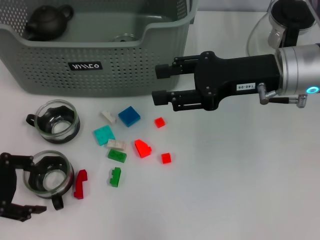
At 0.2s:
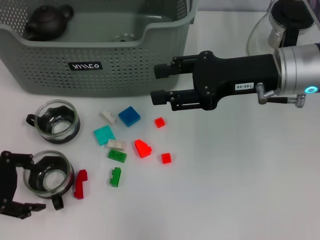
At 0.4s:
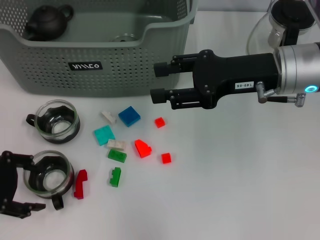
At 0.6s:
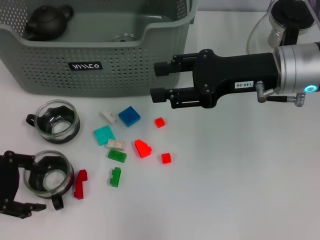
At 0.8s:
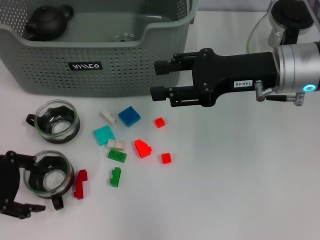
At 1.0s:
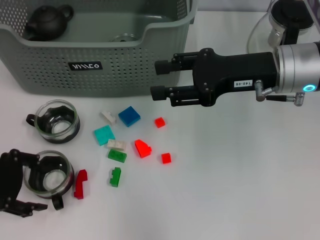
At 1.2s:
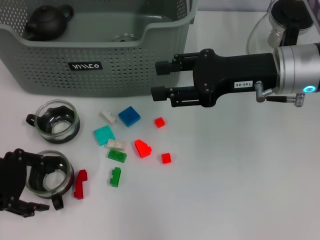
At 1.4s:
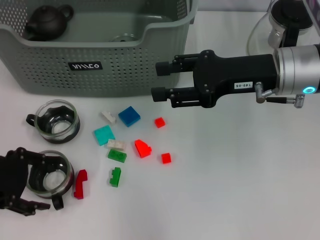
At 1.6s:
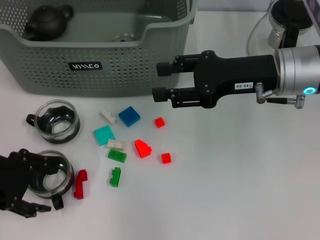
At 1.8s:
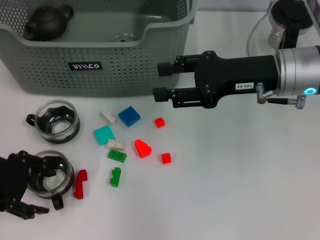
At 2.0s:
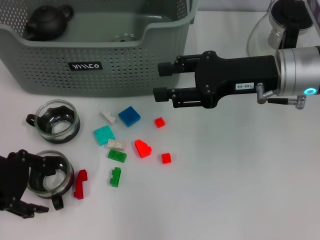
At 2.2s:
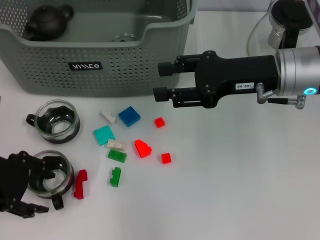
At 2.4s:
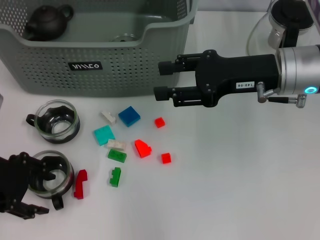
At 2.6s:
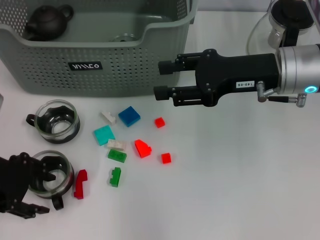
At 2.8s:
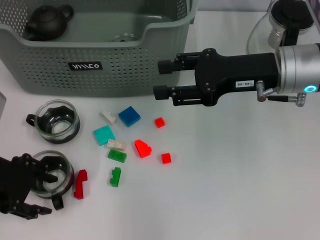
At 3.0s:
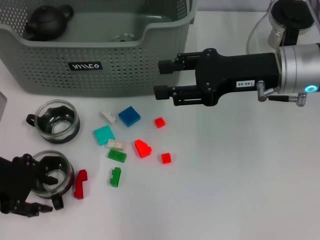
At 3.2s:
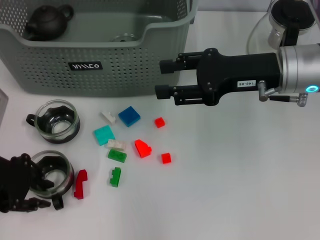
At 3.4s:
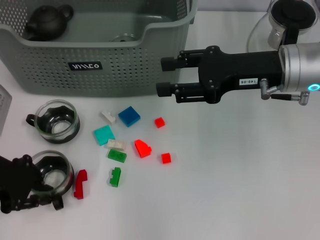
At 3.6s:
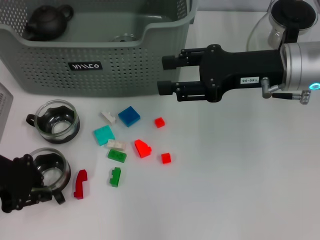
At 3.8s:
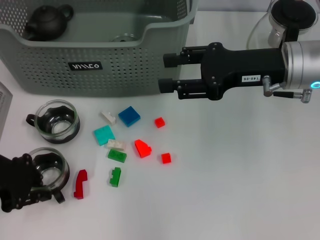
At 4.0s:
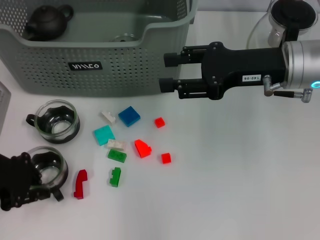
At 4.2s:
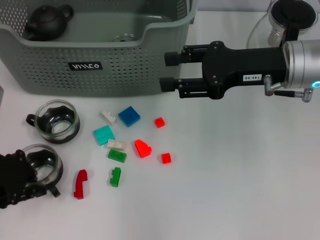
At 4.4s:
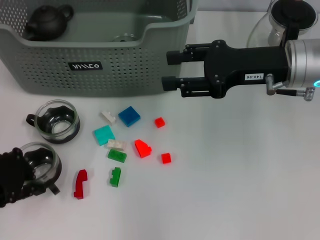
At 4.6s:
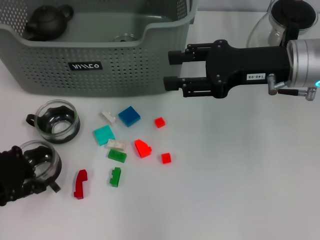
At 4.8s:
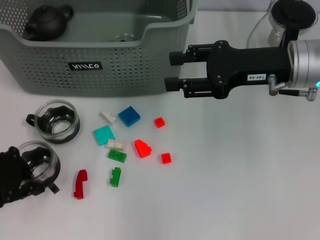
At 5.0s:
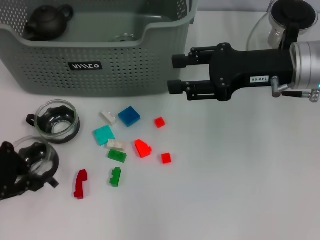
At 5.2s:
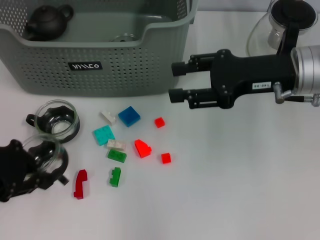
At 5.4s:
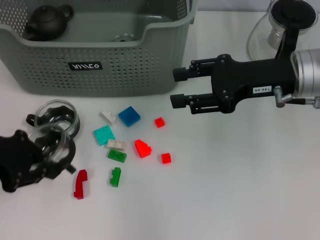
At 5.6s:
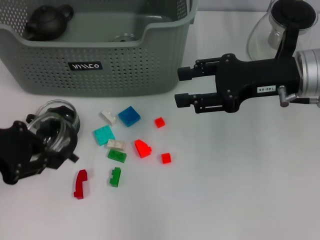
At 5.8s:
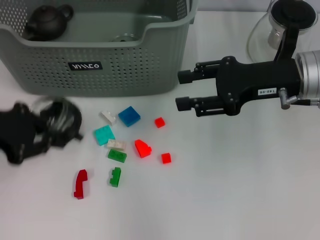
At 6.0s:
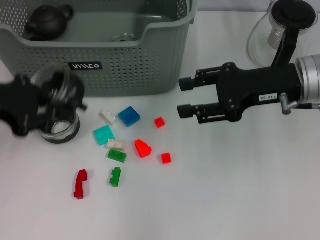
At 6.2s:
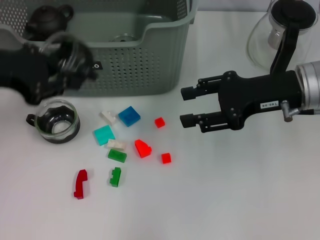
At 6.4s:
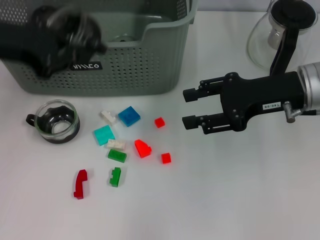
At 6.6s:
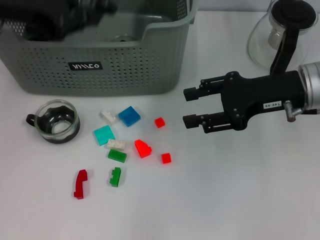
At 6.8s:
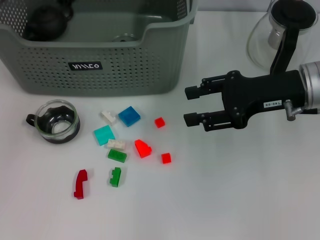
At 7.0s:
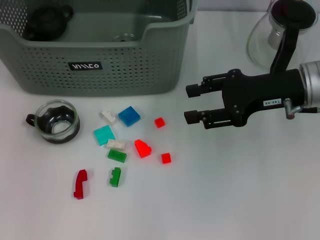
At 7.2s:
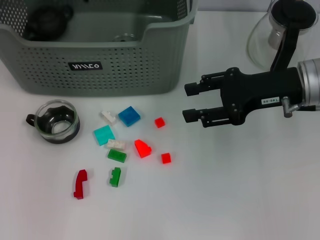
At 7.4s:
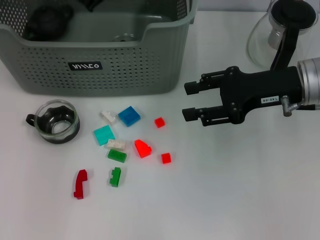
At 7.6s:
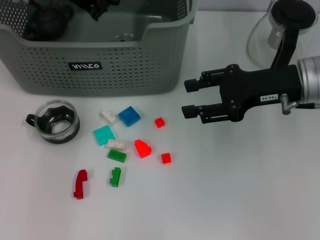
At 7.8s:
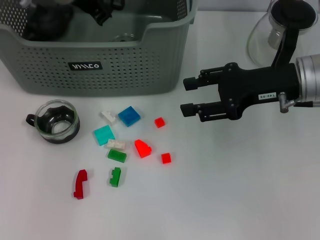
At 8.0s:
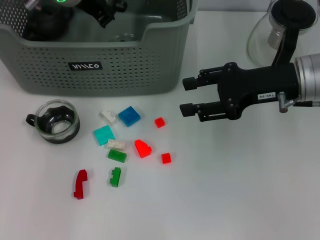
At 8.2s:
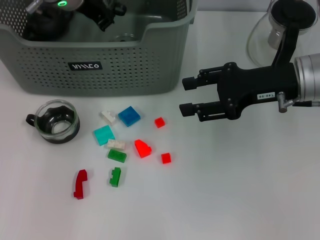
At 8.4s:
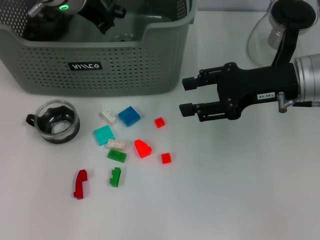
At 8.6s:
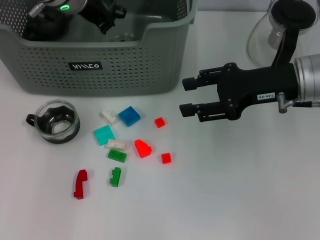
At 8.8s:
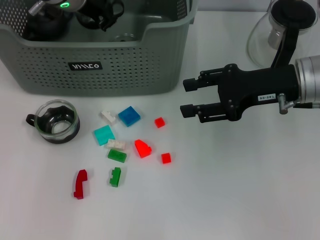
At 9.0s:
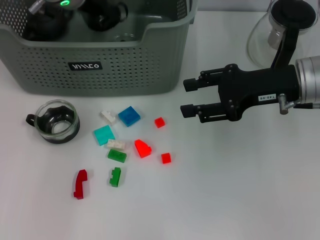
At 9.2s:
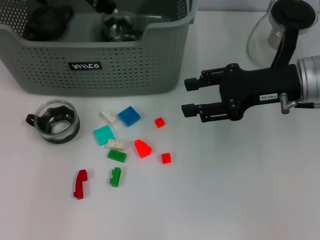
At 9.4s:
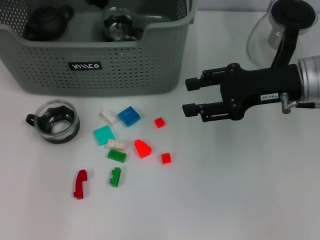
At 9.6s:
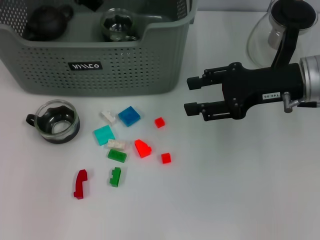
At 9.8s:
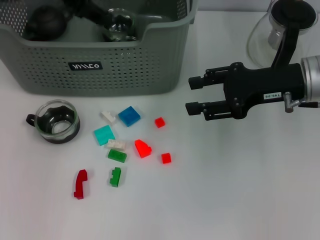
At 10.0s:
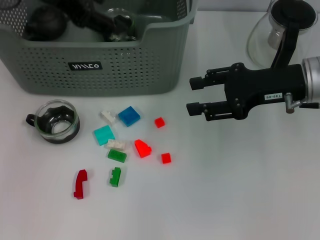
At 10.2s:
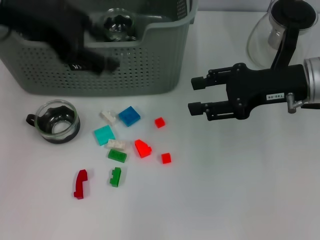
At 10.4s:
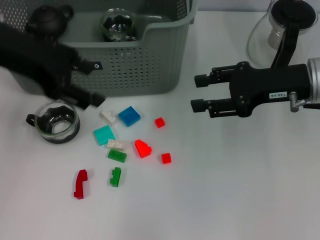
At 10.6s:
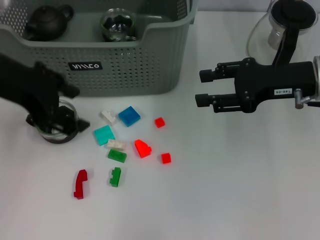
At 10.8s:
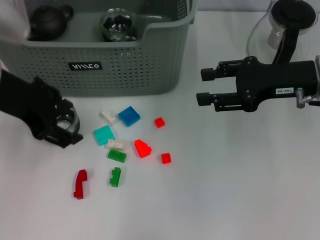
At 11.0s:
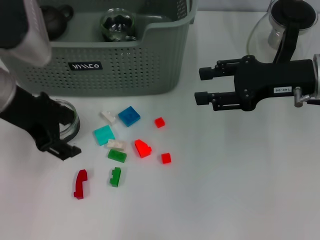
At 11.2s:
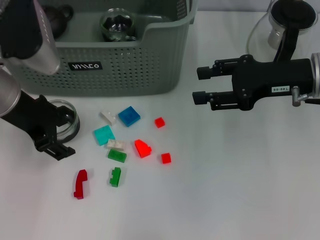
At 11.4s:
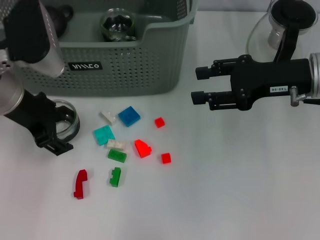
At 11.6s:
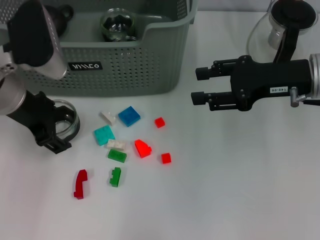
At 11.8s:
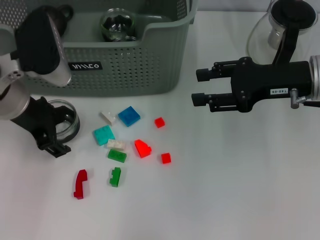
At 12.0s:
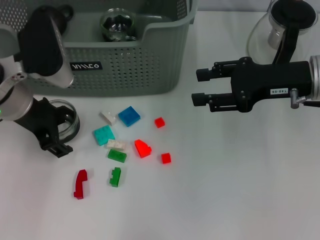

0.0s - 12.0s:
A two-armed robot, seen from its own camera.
Task of the whole recording: pick up the teacup on the table and place it into the storage bin, pick up the block on the table and place it into the storage bin.
Step, 0.0s - 3.6s: Grasp the cup with left gripper.
Step, 3.8s - 9.6s: Place the cup in the storage box with left gripper.
0.0s - 1.6s: The grippers make only small movements.
1.6s - 3.0s: Both grippers stay put.
3.0s - 4.4s: The left gripper closes its fingers.
4.4s - 6.0s: The left gripper heads upward, covering about 5 cm.
6.0s - 7.6s: The left gripper shifts approximately 20 cm forward and to the right.
7.6s - 9.0s: The grippers stay close to where they were, moving slightly.
9.0s - 10.4s: The left gripper travels backward, upward and to the left by approximately 20 cm, and opens its fingers.
10.4s - 12.0s: The left gripper is displaced downward by some 10 cm.

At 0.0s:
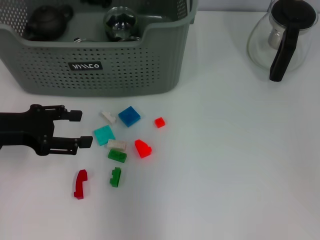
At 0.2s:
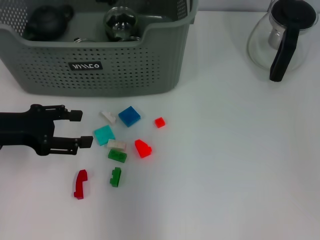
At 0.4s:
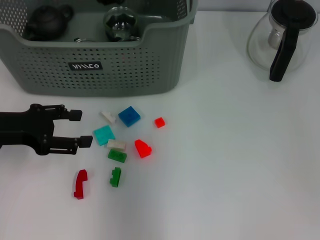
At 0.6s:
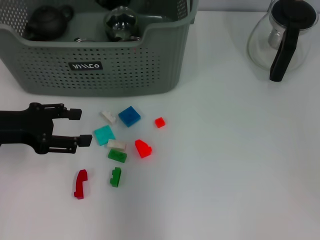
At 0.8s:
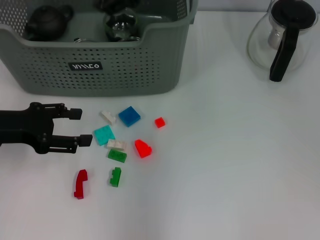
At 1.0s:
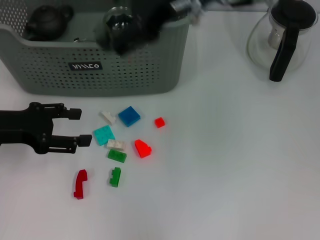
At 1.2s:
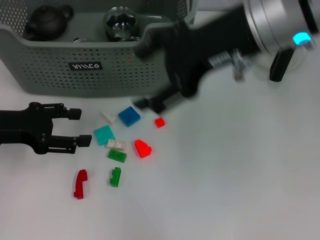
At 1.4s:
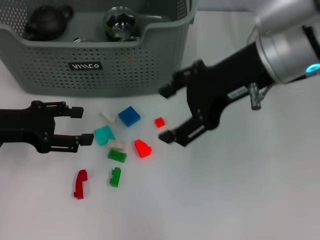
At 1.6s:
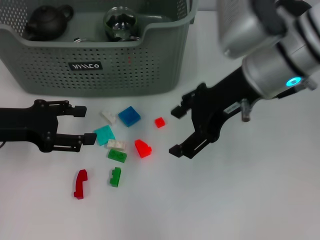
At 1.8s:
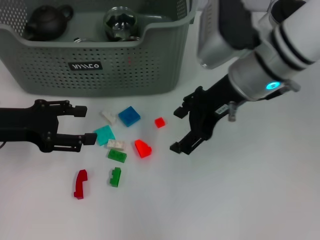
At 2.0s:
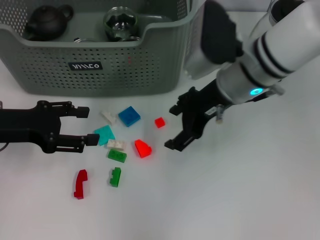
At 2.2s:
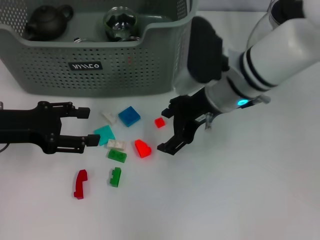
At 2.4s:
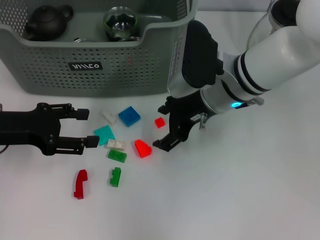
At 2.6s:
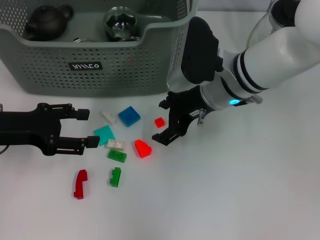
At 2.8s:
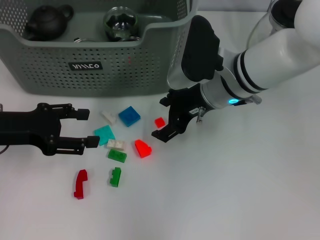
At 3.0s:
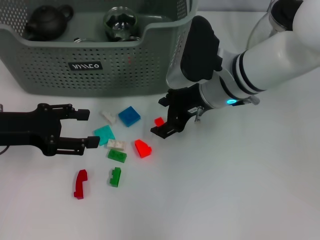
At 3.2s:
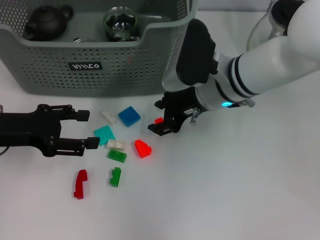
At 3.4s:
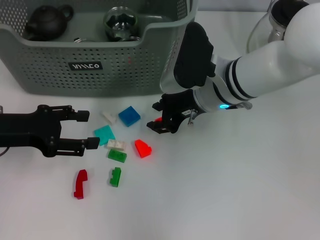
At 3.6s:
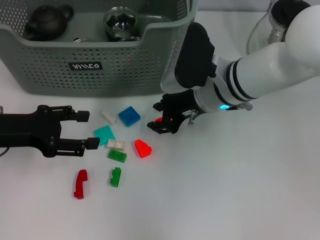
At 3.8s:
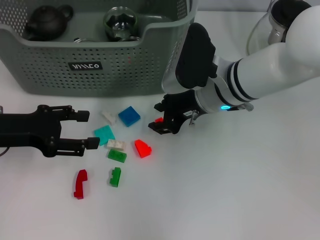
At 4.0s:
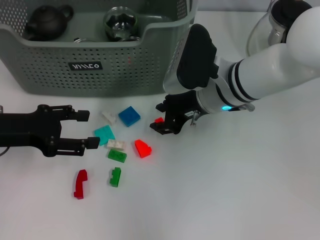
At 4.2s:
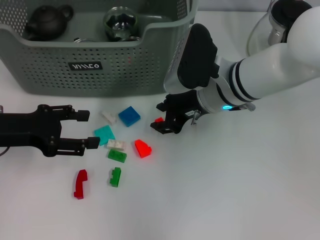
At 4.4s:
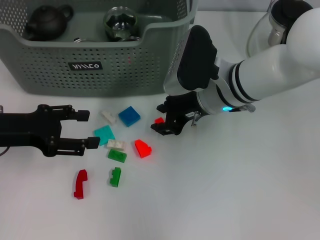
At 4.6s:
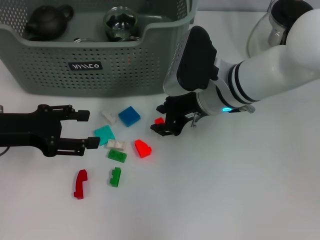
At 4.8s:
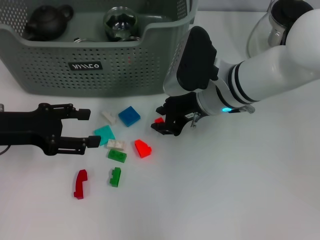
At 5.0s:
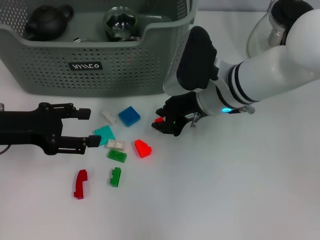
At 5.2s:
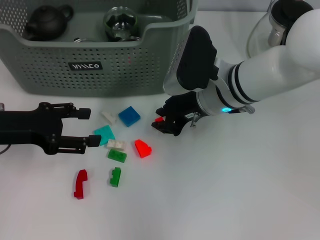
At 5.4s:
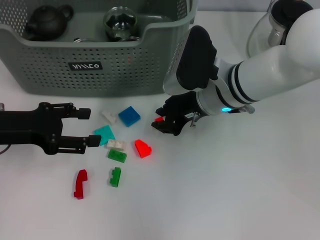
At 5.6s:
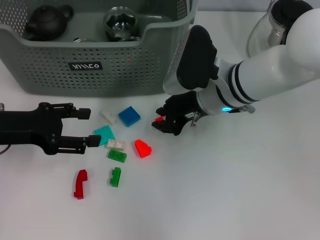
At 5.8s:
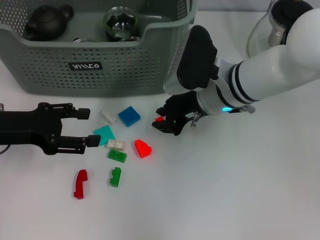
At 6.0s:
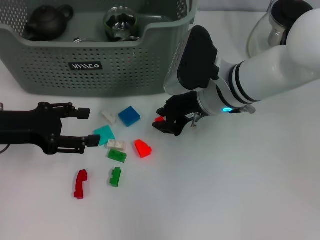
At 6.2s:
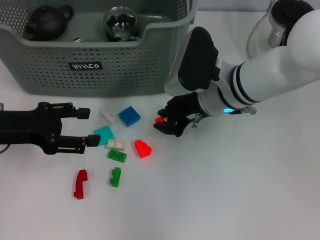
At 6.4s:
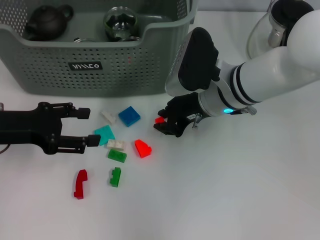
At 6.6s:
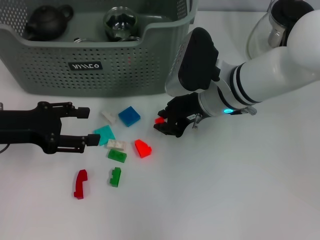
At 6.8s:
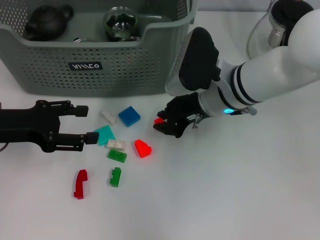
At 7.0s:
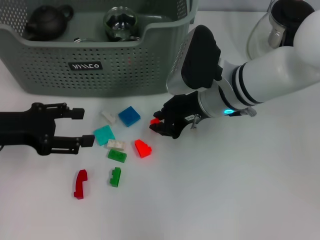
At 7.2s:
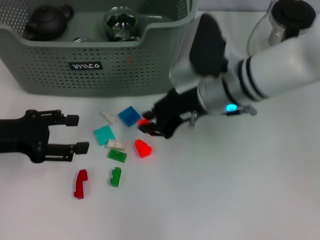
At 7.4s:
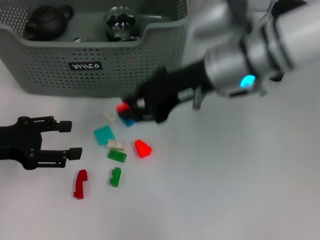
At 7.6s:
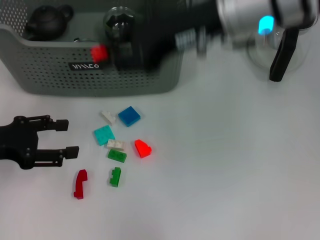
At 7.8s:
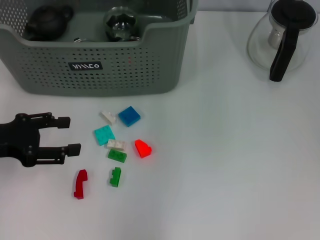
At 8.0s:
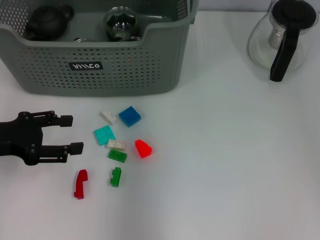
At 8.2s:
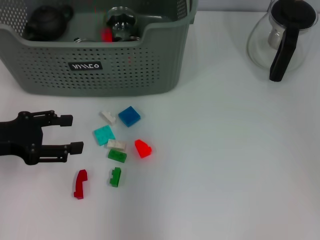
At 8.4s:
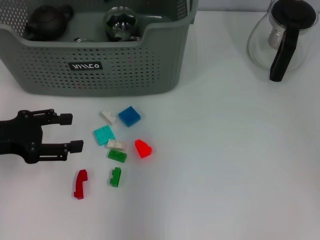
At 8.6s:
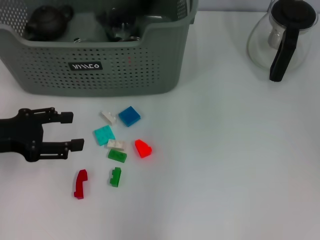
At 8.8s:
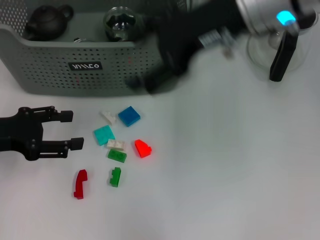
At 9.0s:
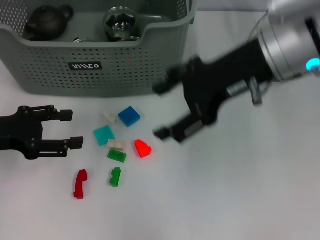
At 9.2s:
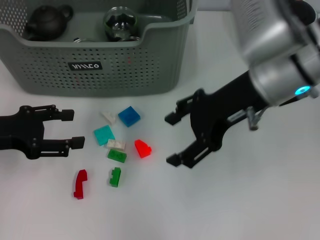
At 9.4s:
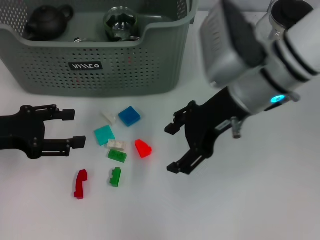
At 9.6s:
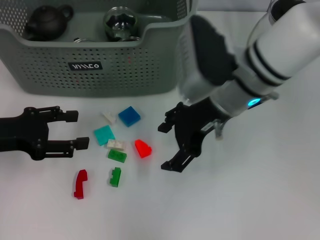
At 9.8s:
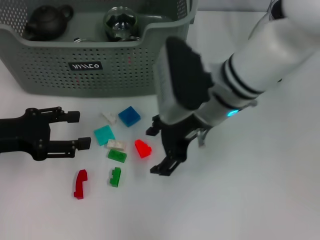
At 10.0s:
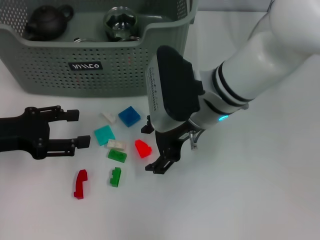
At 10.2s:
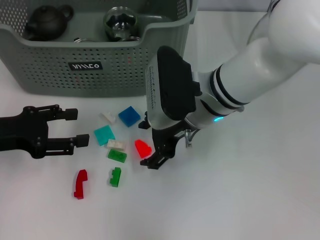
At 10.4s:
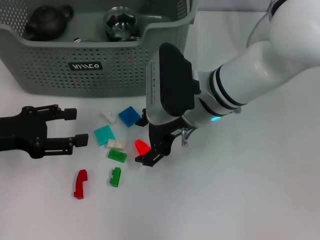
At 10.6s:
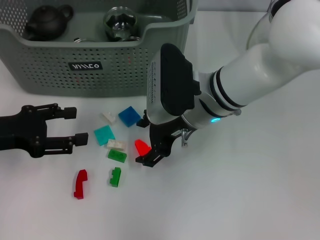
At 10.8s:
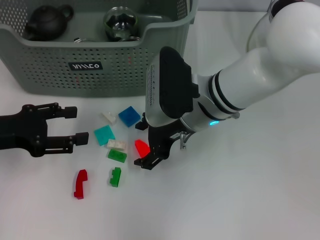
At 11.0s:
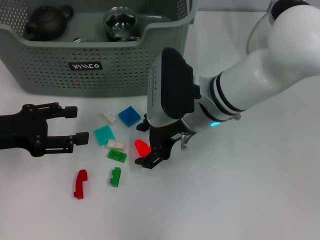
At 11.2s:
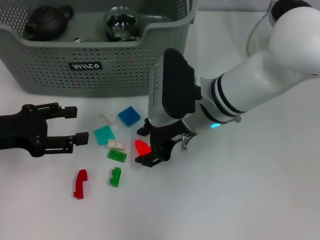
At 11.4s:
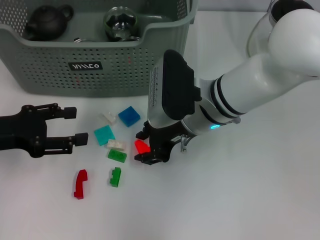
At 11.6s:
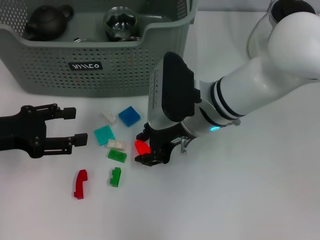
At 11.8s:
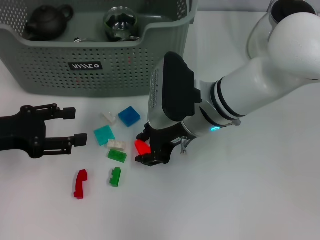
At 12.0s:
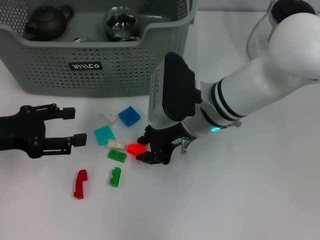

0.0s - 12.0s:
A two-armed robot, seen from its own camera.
Task of the whole recording: pick up the teacup on the table and place it into the storage bin, pick up the block on the table and place it into the storage bin.
Step, 0.8s - 6.6s: Grasp the orange block with right gripper.
Step, 6.8s - 8.4s: Place the orange block in the storage box with right gripper.
0.0s - 1.6s: The right gripper shifts approximately 15 cm to the right, backward and downward, and opens up.
1.6s - 3.0s: The right gripper shifts about 10 cm downward.
3.0s - 4.4s: The right gripper closes.
4.4s - 6.0s: The two grippers keep their place.
6.0s - 7.6s: The right gripper travels upward by about 15 cm.
7.6s - 9.0s: The right gripper reaches roughly 10 cm forward, then returns, and opens.
9.0s - 10.4s: The right gripper heads downward and to the left, covering approximately 15 cm.
10.4s - 12.0s: The right gripper closes up.
